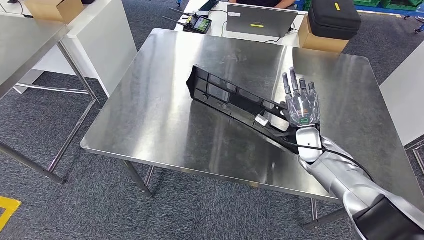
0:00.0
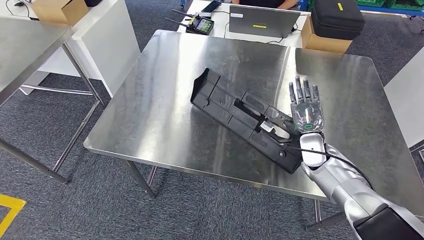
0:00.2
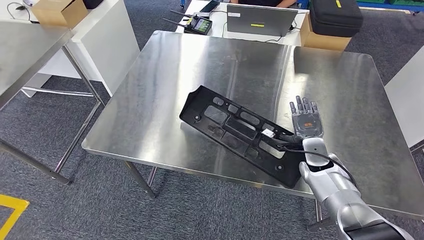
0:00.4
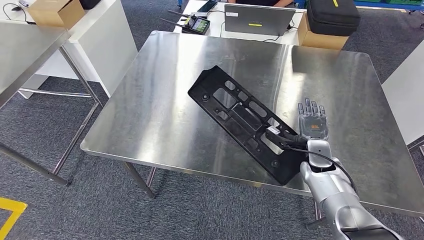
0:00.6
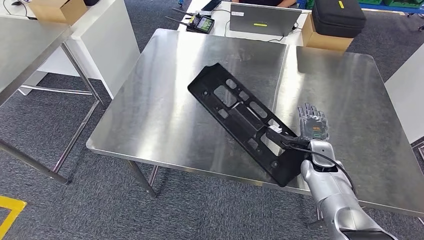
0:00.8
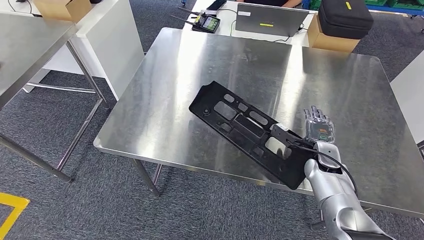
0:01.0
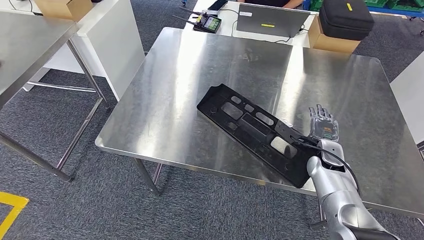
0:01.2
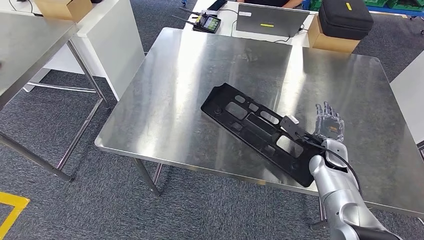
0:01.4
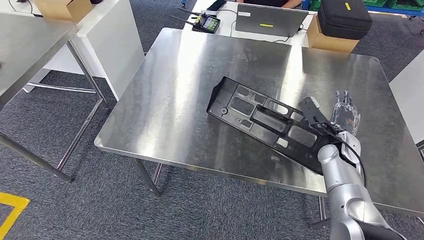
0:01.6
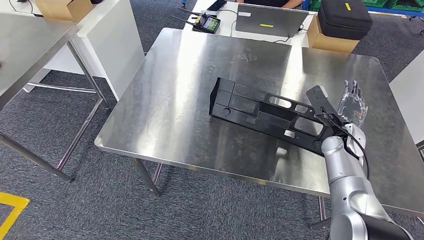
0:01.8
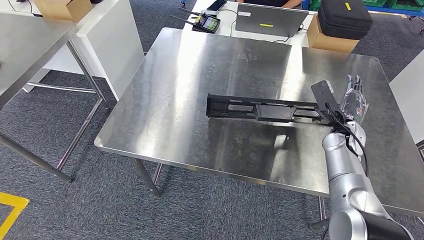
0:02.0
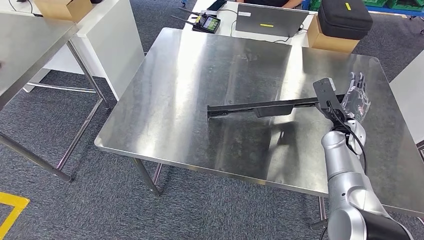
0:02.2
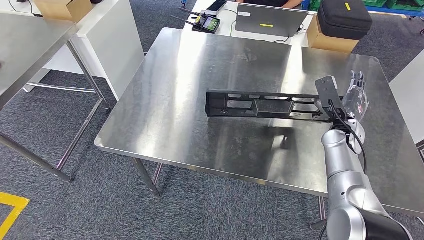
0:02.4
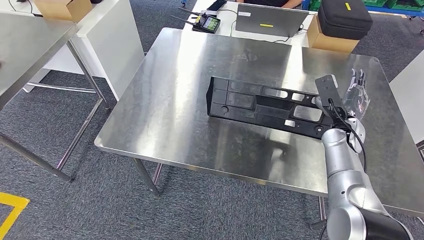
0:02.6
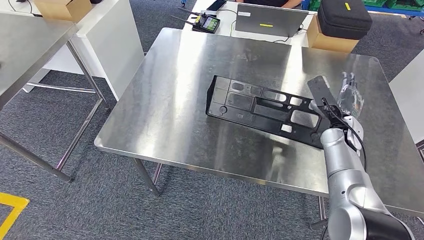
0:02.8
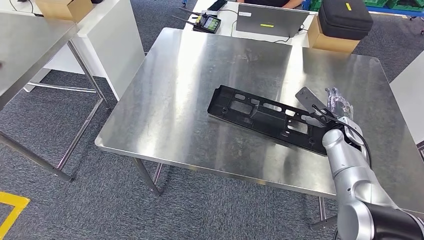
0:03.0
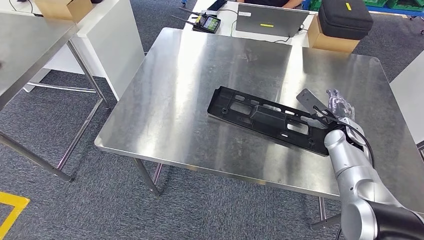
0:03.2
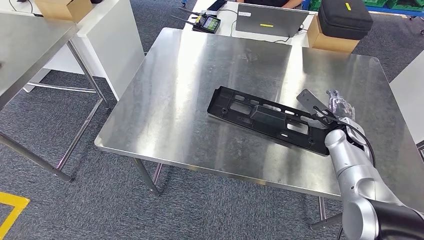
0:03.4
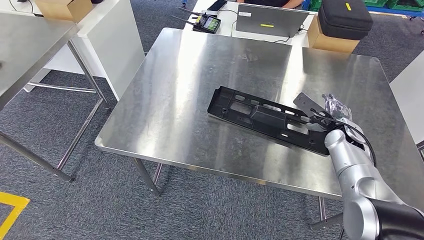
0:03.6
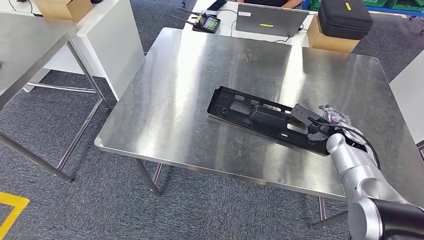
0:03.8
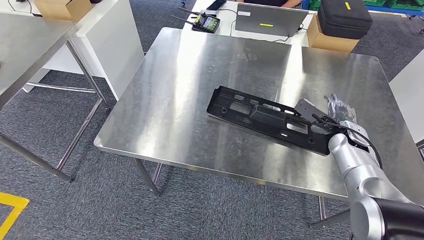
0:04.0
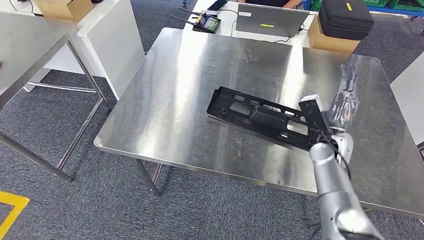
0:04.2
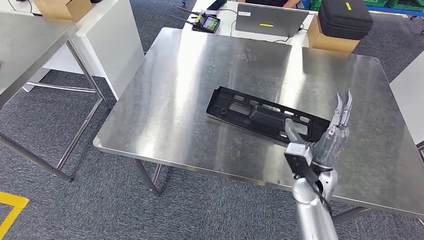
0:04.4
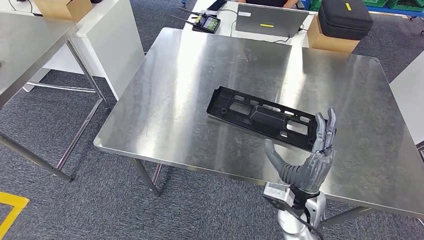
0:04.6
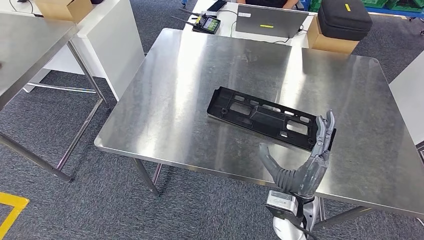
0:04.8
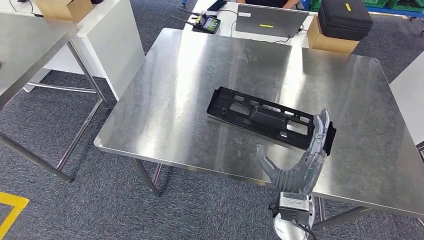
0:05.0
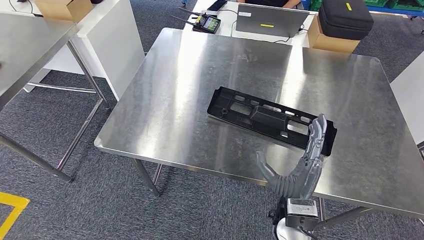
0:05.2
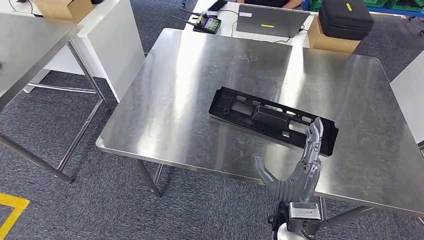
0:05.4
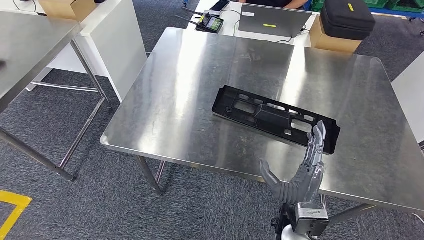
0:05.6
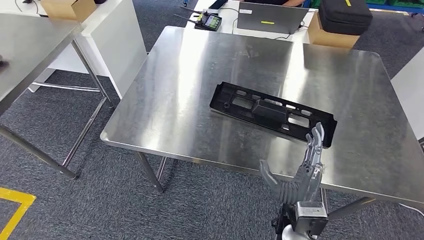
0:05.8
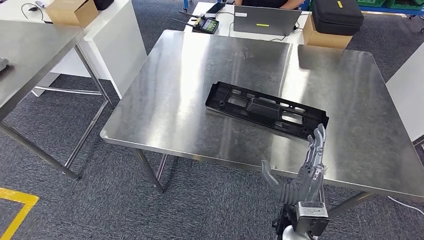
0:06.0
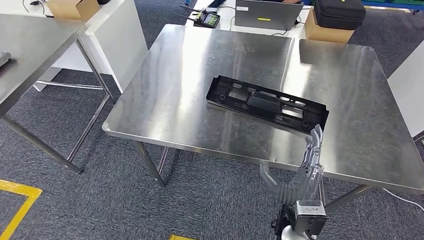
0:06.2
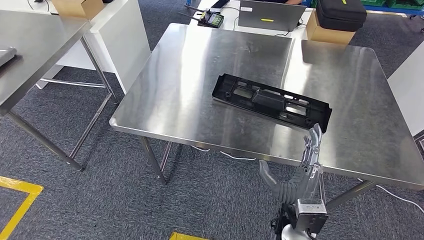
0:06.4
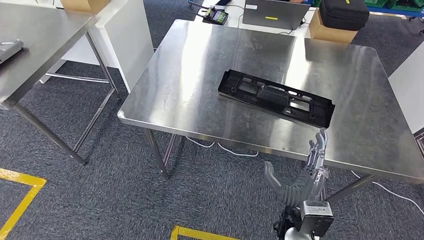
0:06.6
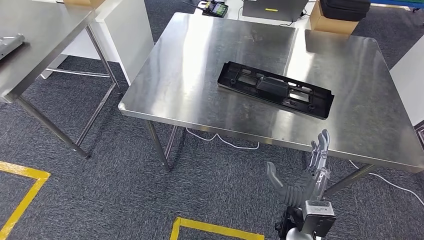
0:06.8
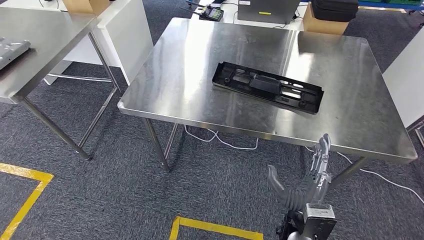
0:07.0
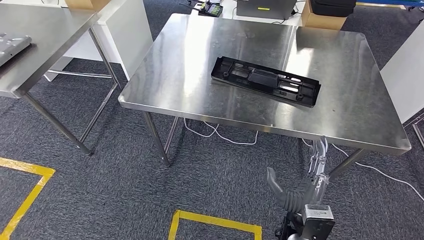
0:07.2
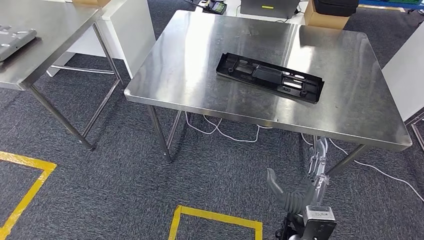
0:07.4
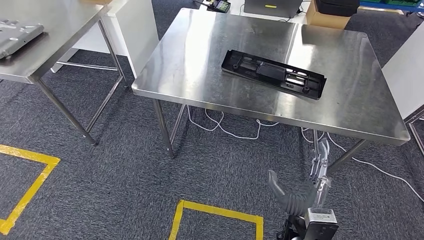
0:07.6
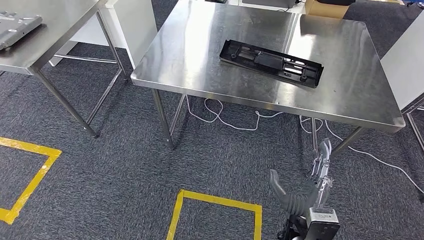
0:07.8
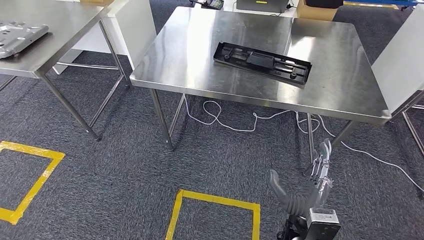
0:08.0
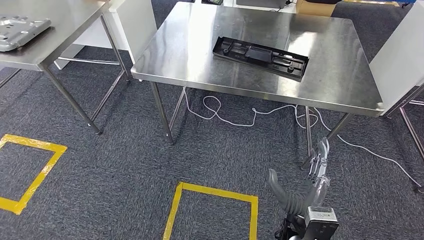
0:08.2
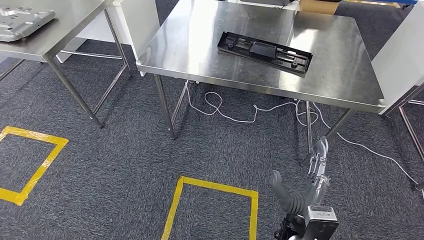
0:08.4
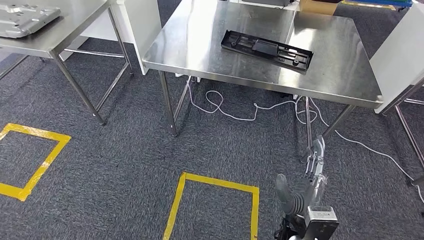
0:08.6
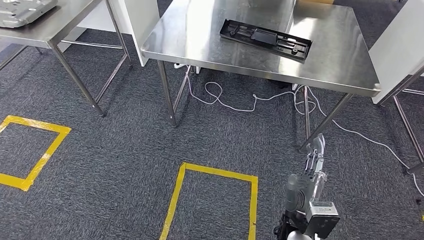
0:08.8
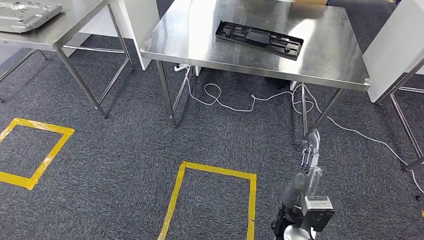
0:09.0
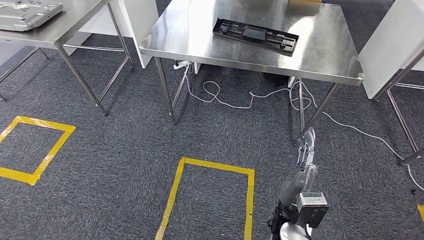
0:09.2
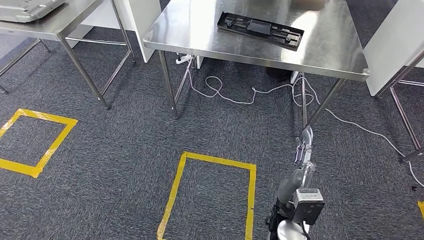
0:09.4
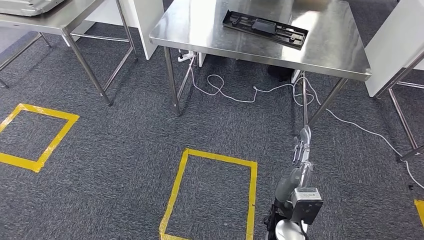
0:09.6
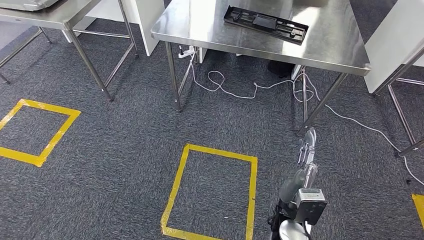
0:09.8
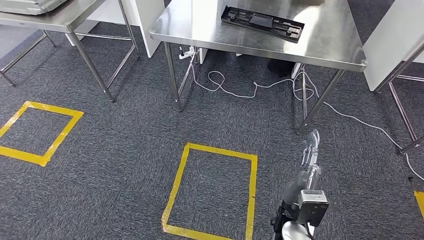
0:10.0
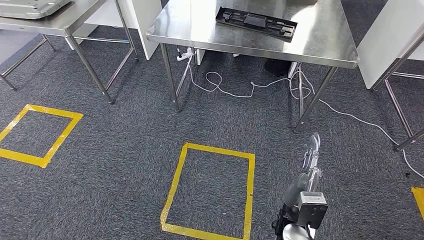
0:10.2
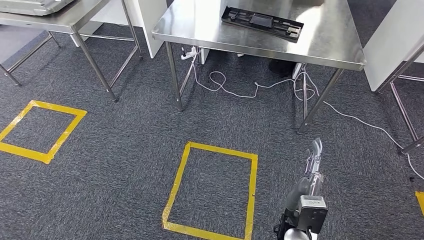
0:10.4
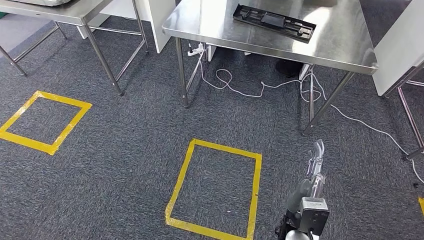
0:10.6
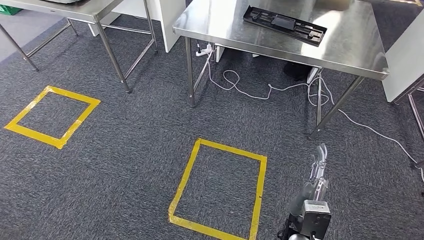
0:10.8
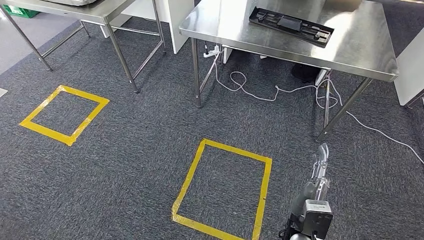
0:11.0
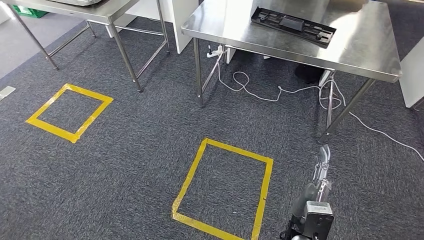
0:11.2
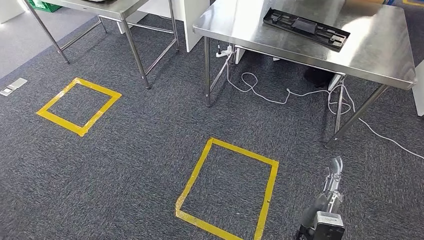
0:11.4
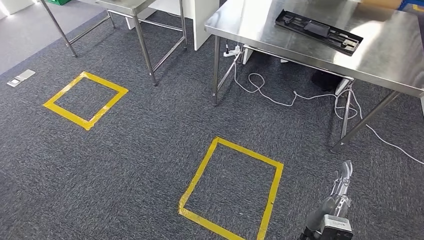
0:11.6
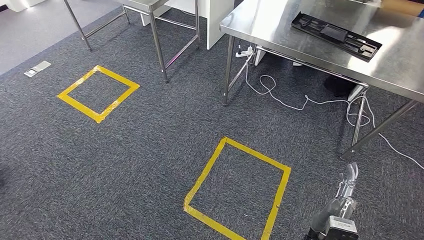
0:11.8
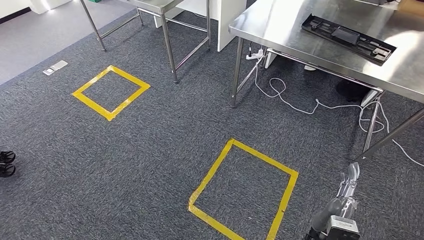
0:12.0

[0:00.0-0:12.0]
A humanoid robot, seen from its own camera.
Step, 0:00.0 to 0:09.2: Insert the large material into the corresponding slot on the workbench.
0:03.0 to 0:04.4: The right hand is displaced to the left and backward by some 15 cm.

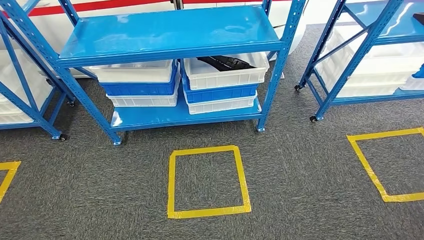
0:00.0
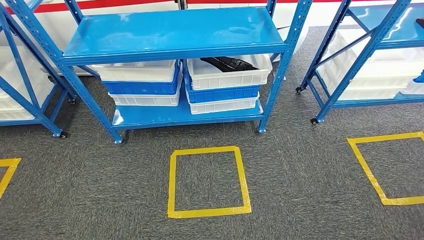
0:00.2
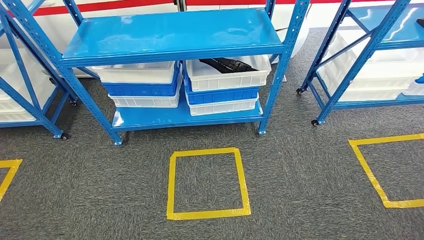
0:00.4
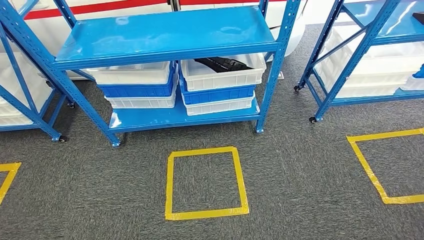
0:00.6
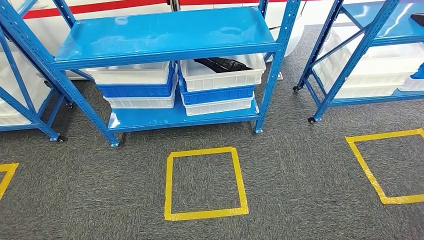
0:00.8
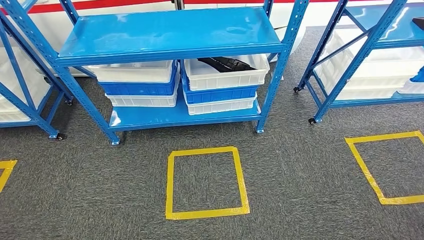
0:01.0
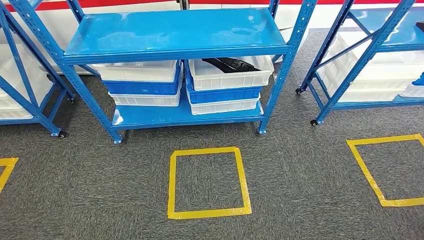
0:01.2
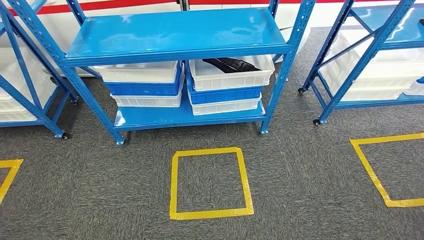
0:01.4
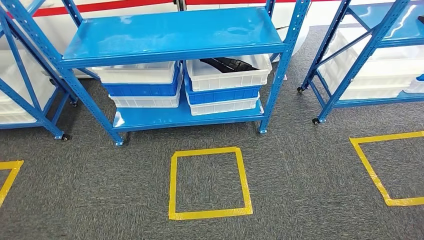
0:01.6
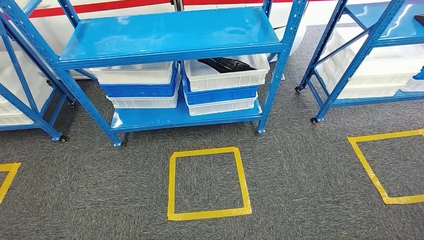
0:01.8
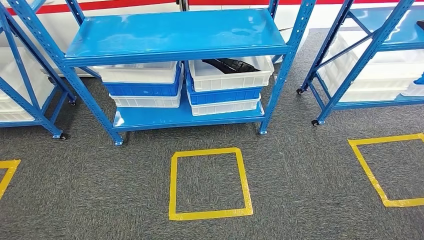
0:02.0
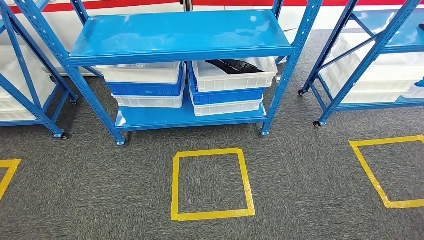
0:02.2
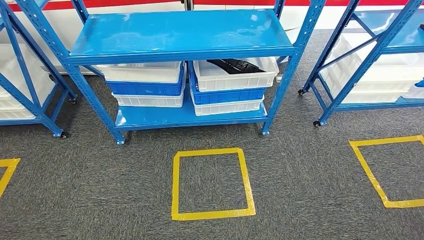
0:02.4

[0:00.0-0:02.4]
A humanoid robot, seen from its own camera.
Step, 0:00.0 to 0:02.4: Move to the initial position of the shelf.
0:01.2 to 0:02.4: The left hand moves roughly 5 cm.
